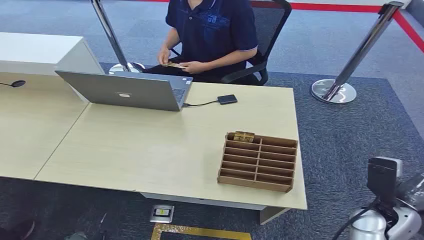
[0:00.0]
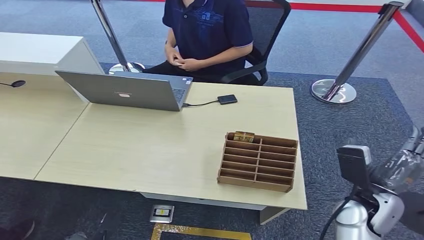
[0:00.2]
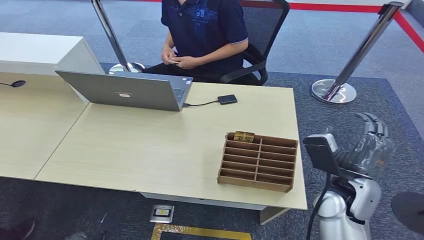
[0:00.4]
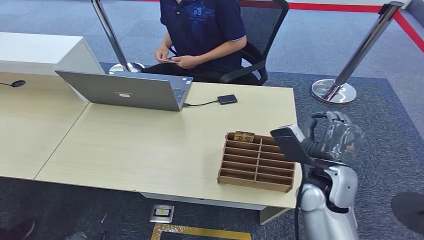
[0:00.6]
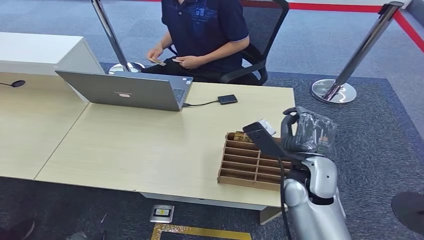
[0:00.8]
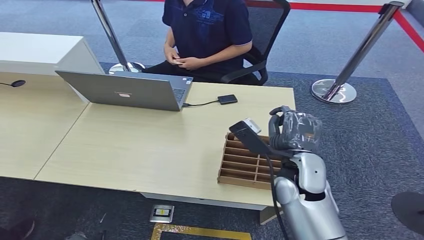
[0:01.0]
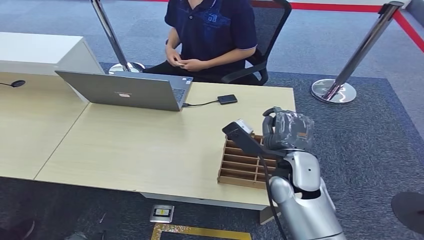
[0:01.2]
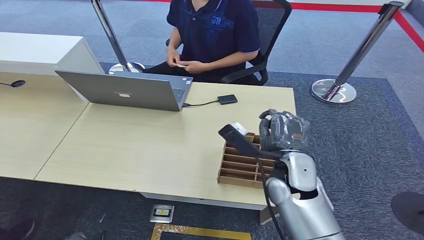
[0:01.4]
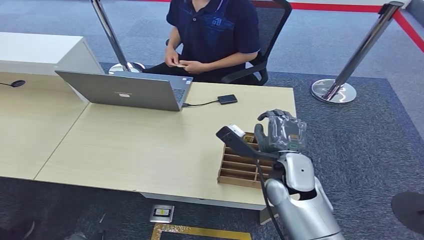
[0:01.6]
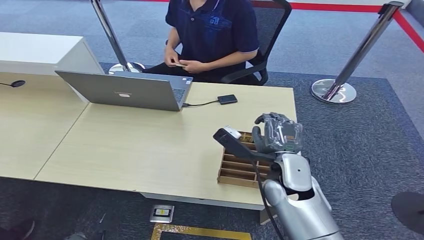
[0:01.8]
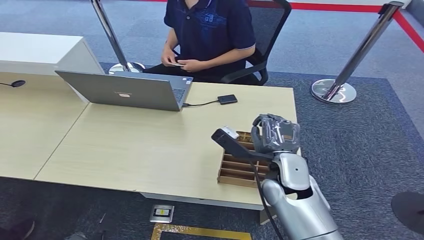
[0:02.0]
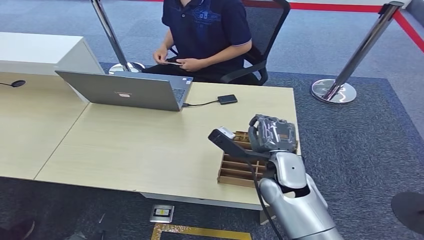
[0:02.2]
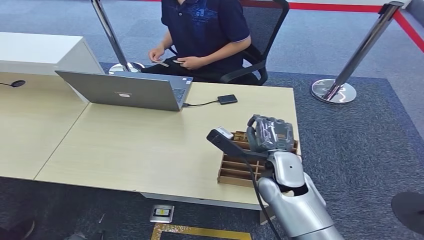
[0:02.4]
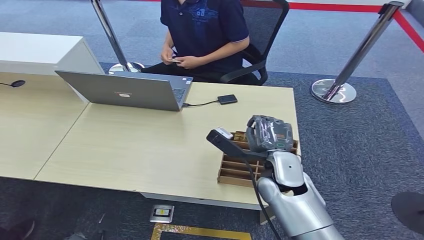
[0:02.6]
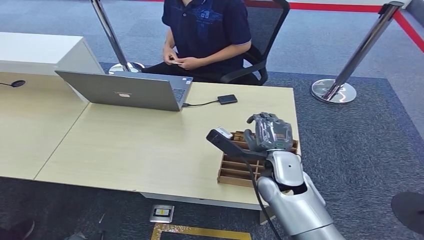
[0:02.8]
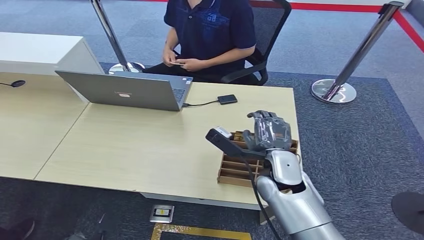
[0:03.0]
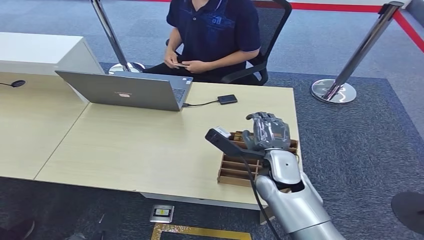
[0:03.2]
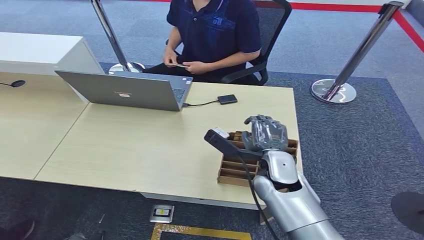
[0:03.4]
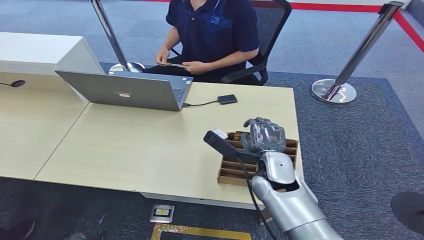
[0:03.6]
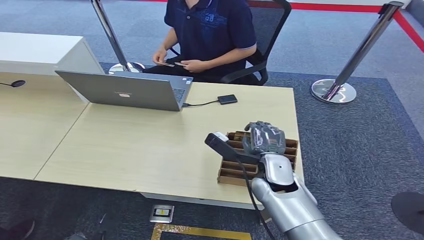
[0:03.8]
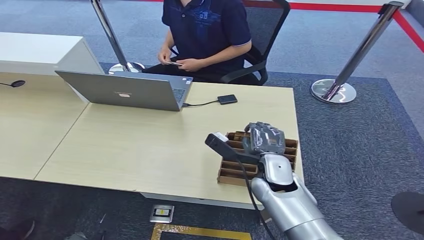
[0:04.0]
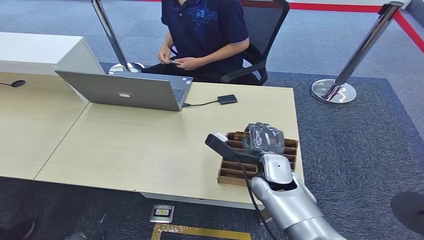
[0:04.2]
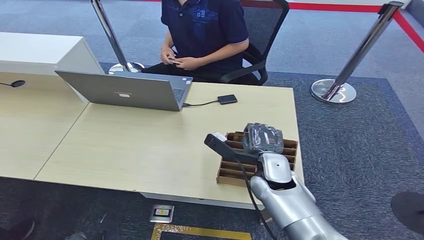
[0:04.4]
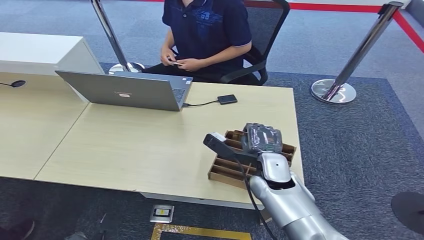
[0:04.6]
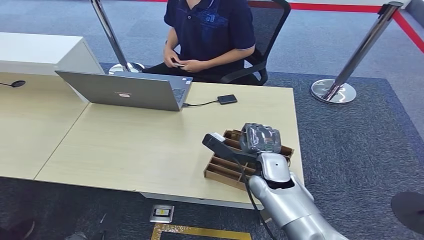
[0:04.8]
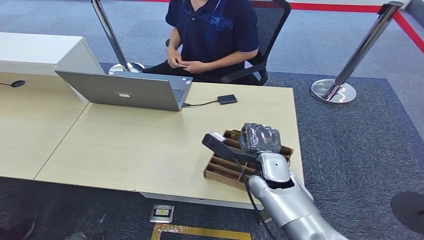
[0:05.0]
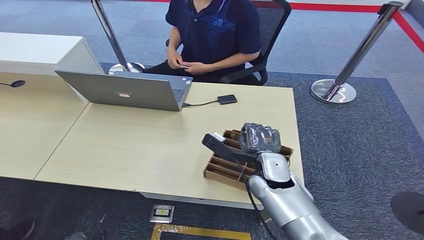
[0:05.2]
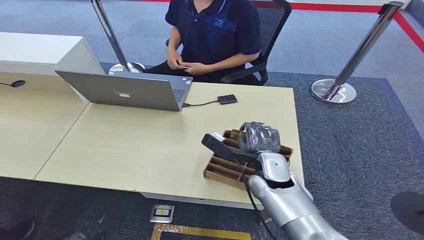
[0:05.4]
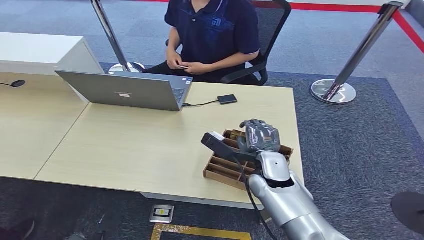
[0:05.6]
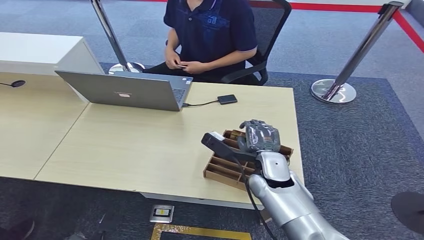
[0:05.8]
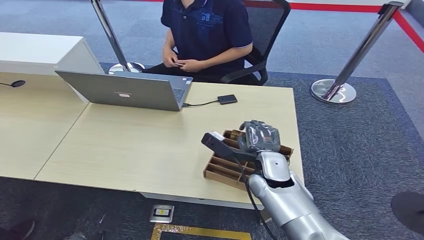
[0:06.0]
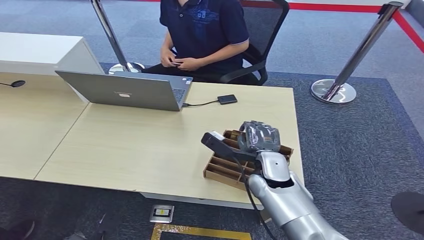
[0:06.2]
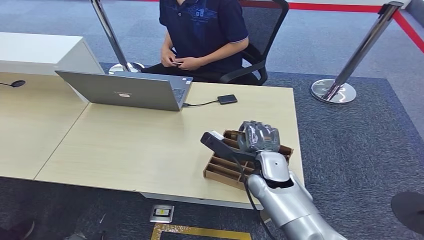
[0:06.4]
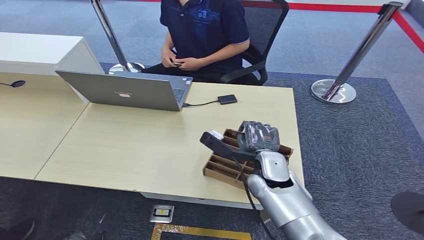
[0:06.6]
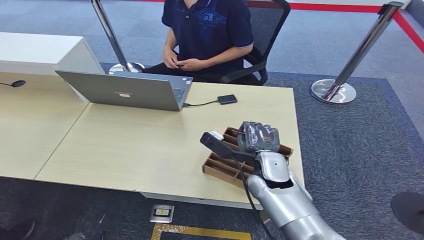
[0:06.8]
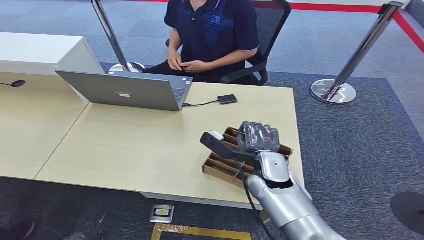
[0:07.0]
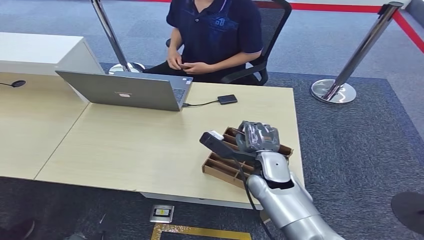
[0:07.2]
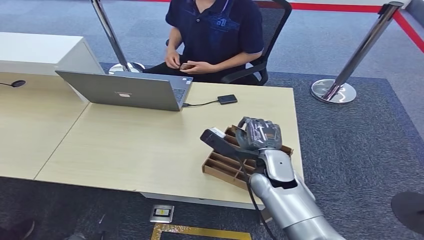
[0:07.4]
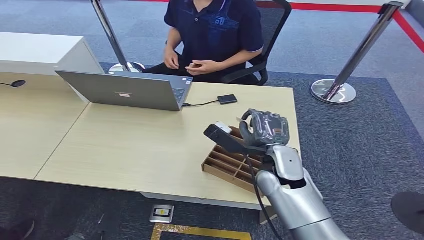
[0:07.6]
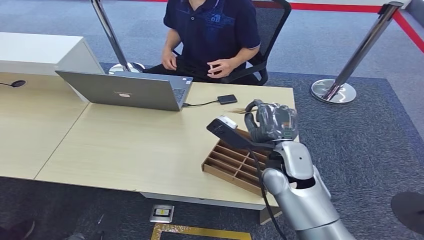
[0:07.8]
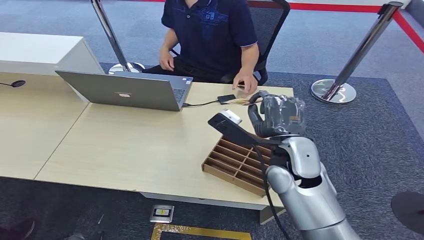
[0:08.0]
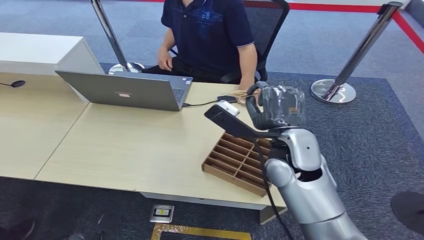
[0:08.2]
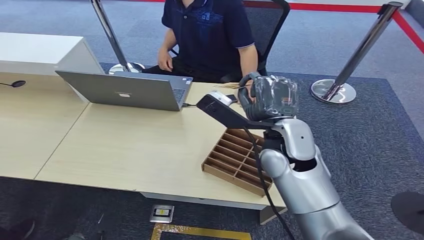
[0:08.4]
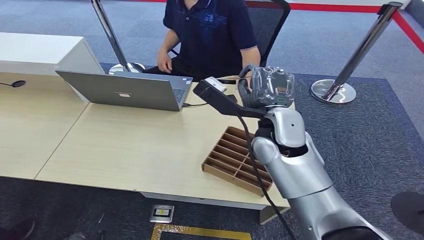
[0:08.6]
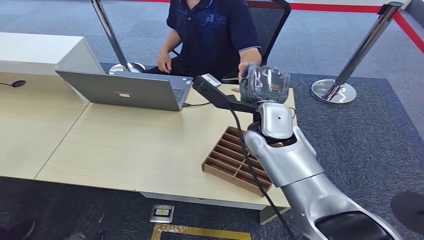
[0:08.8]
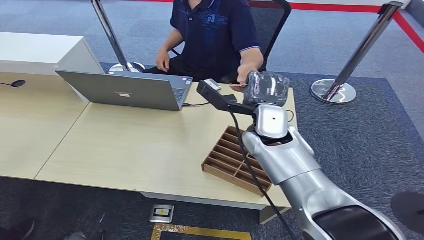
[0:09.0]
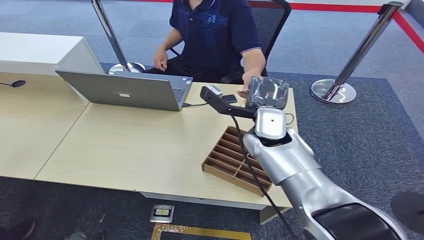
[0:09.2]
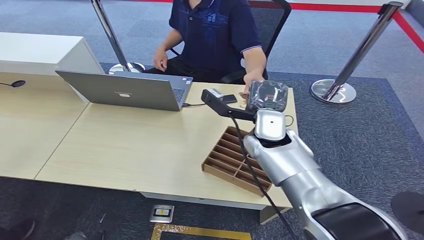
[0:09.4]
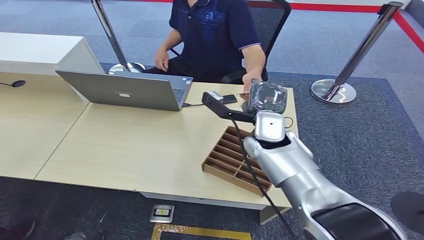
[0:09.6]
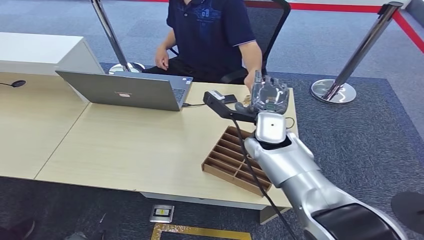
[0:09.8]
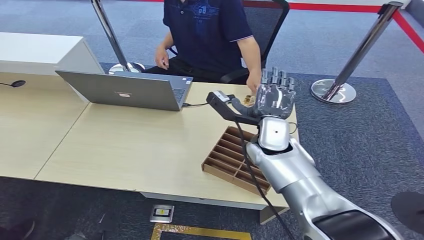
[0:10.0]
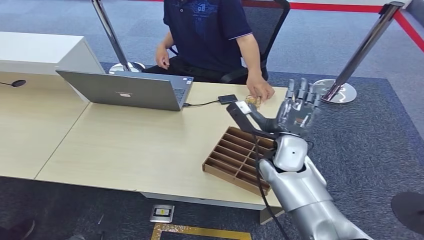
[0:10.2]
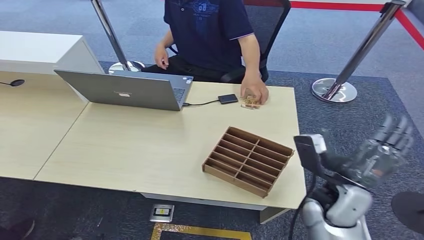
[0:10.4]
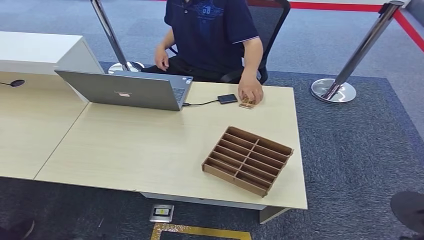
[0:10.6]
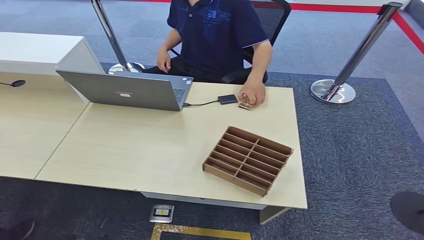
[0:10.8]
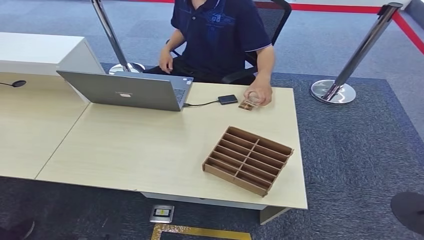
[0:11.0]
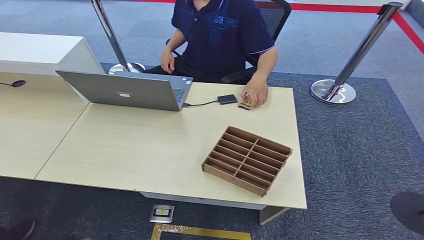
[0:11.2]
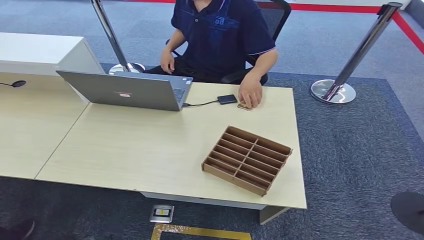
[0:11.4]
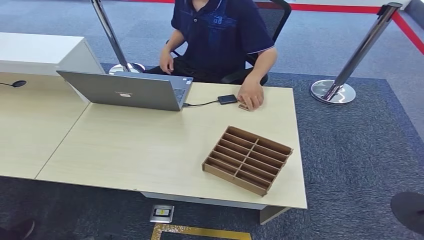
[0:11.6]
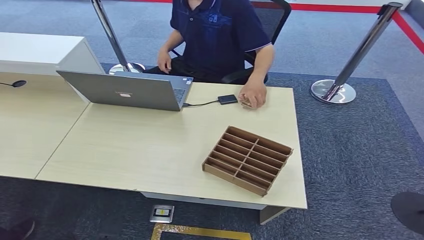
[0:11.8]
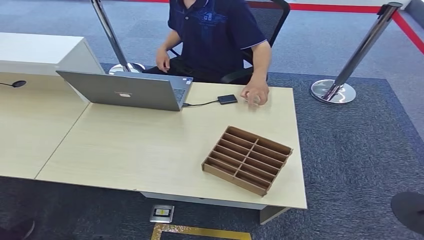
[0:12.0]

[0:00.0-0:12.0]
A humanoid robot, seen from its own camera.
Step, 0:00.0 to 0:07.2: Pick up the room card from the card holder.
Step, 0:07.6 to 0:12.0: Hand the room card to the target.
0:01.6 to 0:04.4: The hands stay close to where they were, moving slightly.
0:04.4 to 0:06.0: Neither hand changes place.
0:06.0 to 0:07.6: The hands make only small movements.
0:07.6 to 0:09.0: The right hand goes approximately 10 cm upward and forward.
0:09.0 to 0:10.4: The right hand shifts approximately 20 cm backward, to the right and downward.
0:10.4 to 0:12.0: The right hand is displaced backward and downward by approximately 30 cm.
